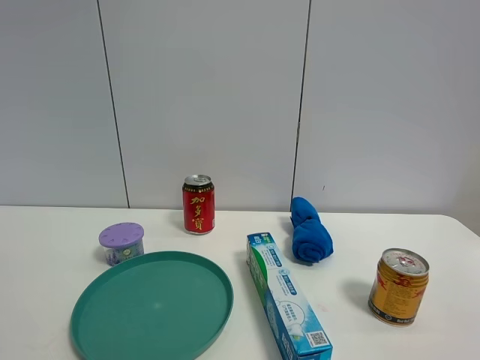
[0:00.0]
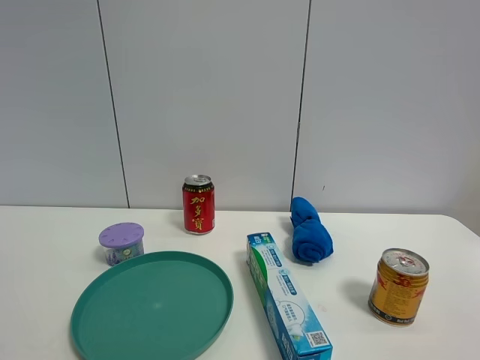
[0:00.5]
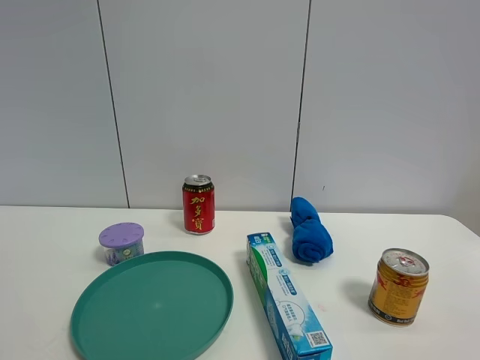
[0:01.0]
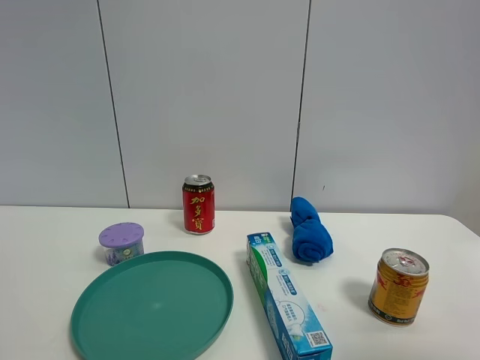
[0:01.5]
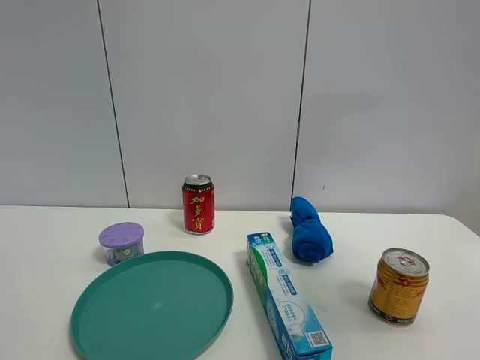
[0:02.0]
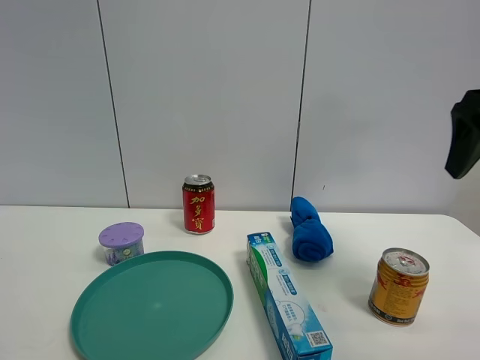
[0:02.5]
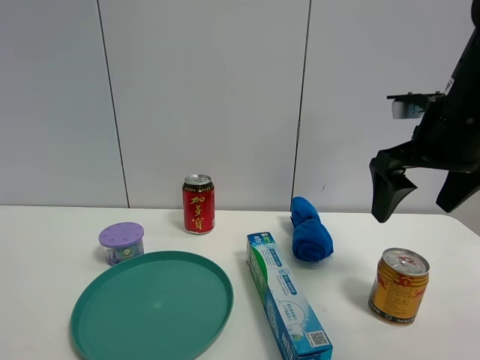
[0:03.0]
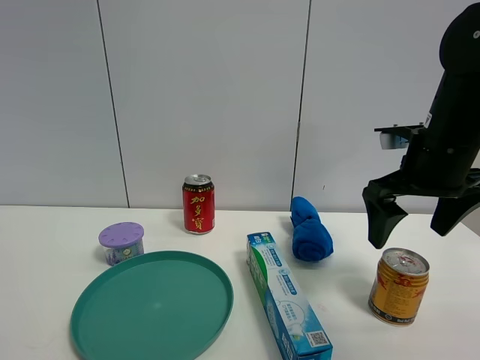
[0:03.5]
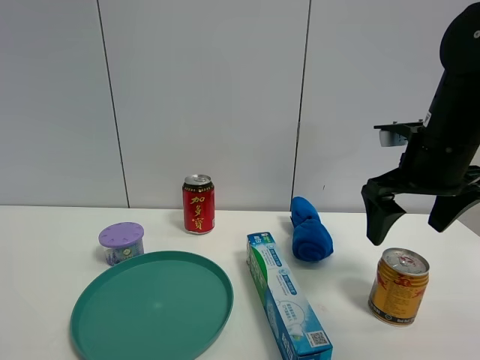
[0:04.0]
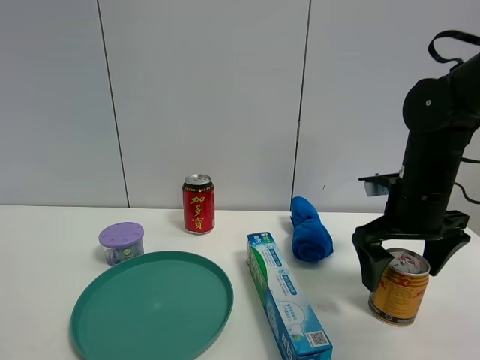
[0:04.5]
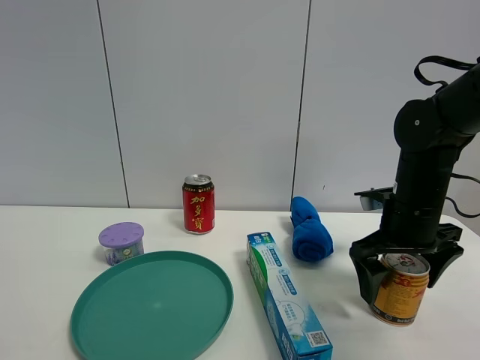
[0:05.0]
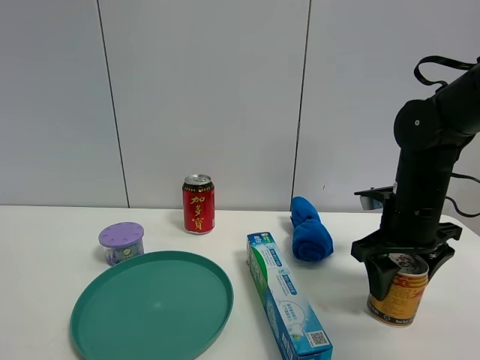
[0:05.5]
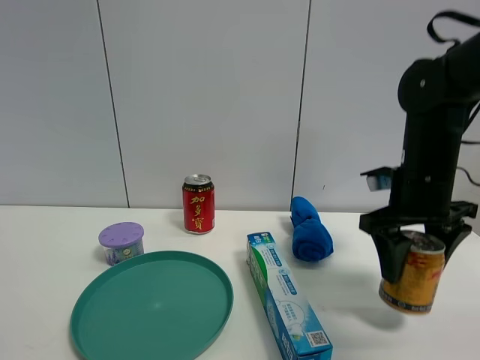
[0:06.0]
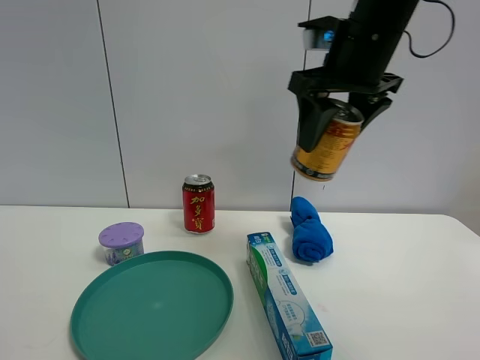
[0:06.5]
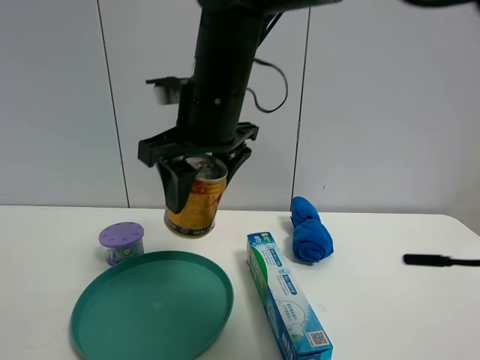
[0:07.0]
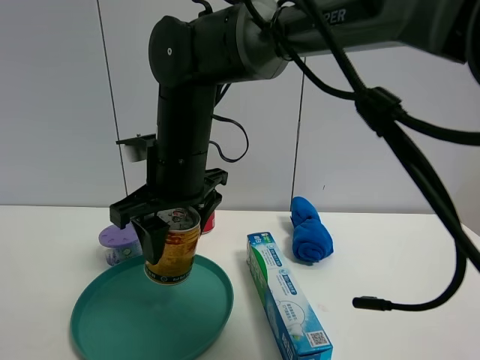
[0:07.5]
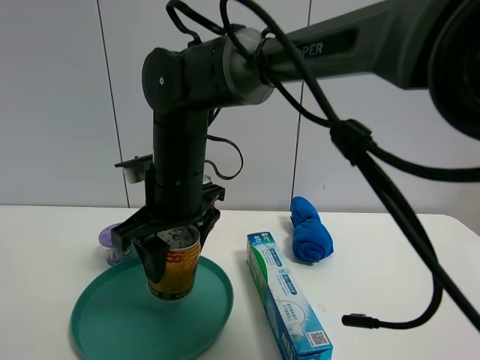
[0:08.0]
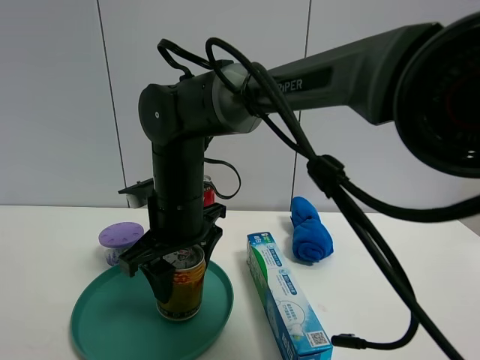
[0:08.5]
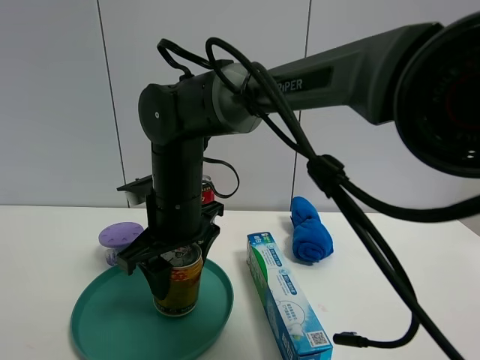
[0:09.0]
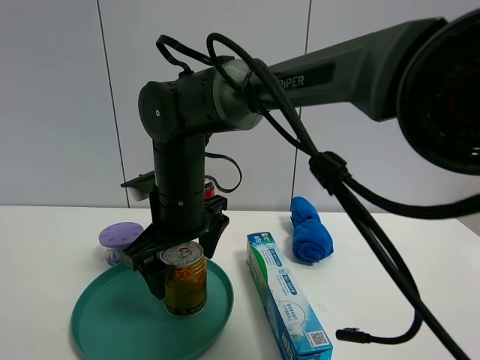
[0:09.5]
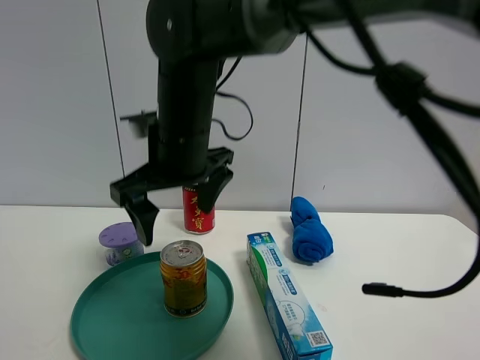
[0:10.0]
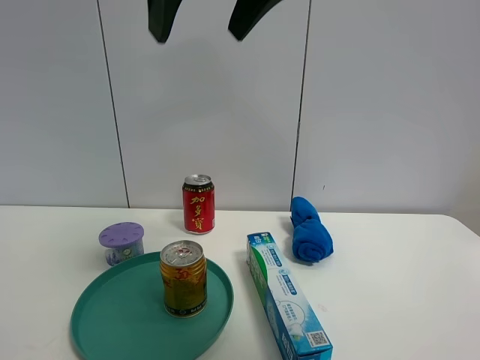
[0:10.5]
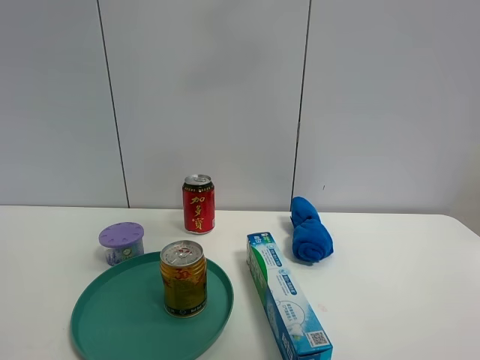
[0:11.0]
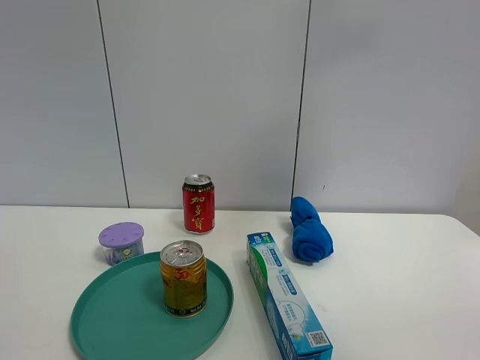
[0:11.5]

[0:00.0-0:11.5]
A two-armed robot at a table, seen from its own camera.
Task of the whole recording: the gripper move the object.
Step, 0:00.0 to 0:05.0: Grasp the red bull with the right gripper.
Step, 0:05.5 to 0:09.5: Place the red bull into the green plate with the right gripper.
0:00.0 to 0:02.0: The right gripper shifts approximately 20 cm forward and upward.
0:02.0 to 0:04.0: The right gripper travels downward, forward and to the left by roughly 25 cm.
0:04.0 to 0:06.0: The right gripper closes up.
0:06.0 to 0:07.5: The right gripper heads to the left, covering roughly 30 cm.
0:07.5 to 0:09.5: The right gripper goes roughly 5 cm downward, and opens.
0:09.5 to 0:11.5: The right gripper heads upward and to the right, covering roughly 50 cm.

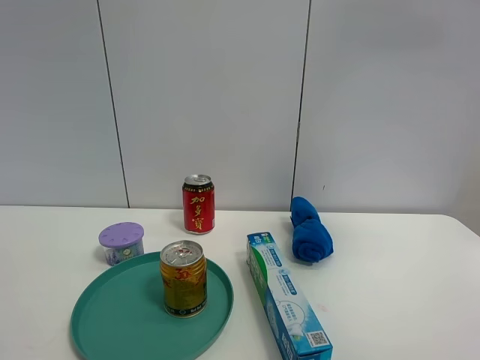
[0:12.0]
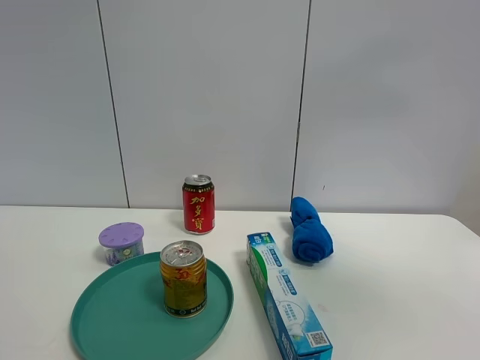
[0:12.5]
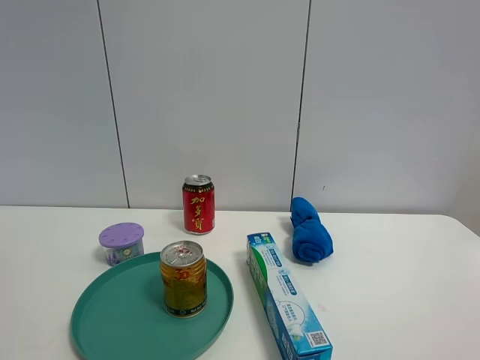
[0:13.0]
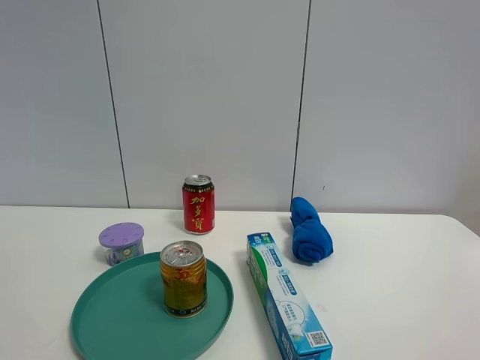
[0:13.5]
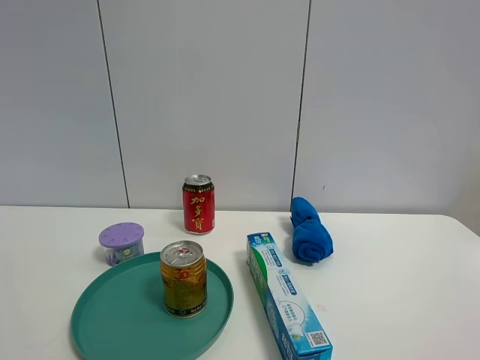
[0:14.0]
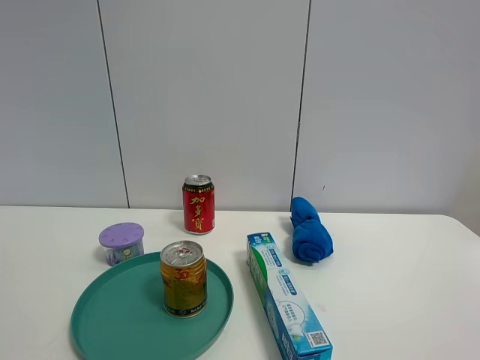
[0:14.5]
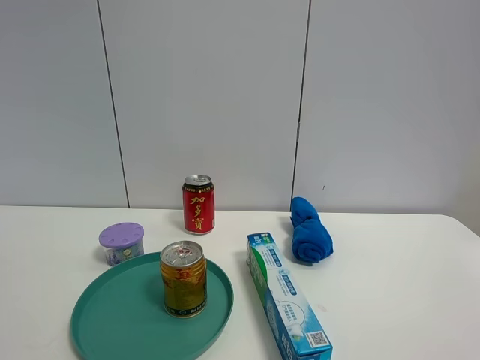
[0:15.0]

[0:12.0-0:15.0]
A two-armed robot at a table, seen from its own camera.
Task of the whole recording: the gripper move the object.
0:12.0 to 0:13.5: The right gripper heads downward and backward, covering approximately 40 cm.
0:13.5 to 0:15.0: Both grippers stay put.

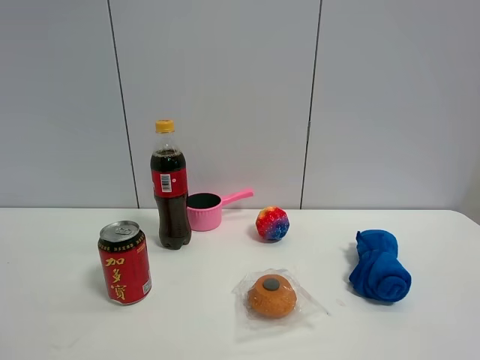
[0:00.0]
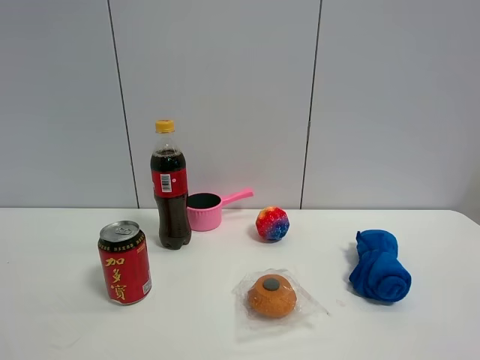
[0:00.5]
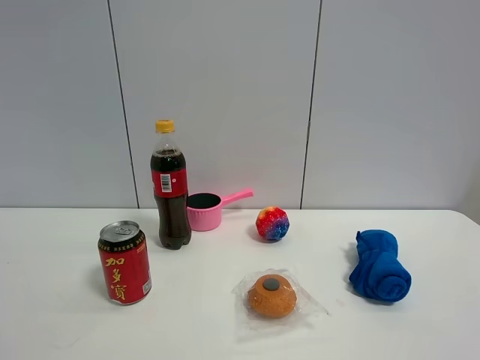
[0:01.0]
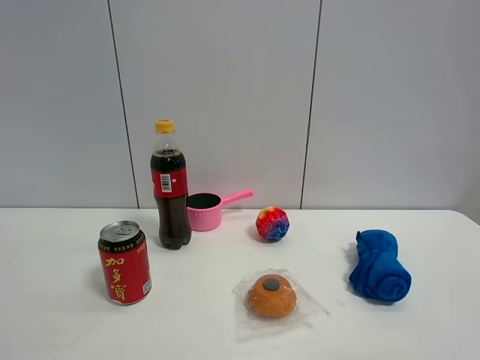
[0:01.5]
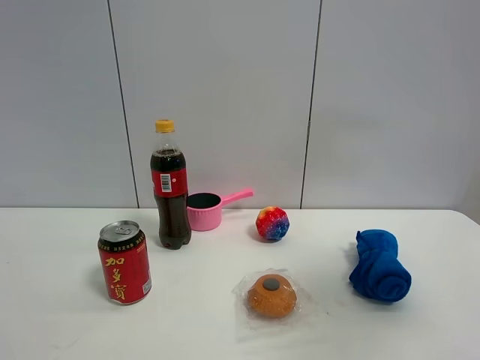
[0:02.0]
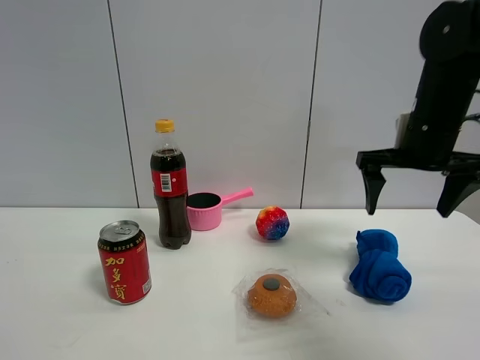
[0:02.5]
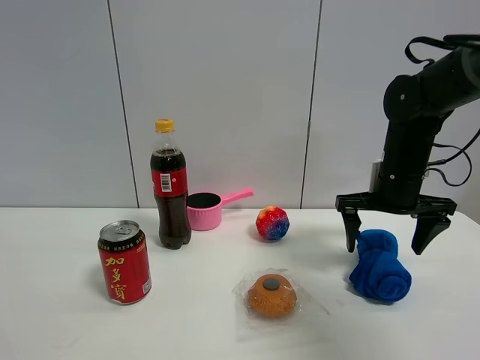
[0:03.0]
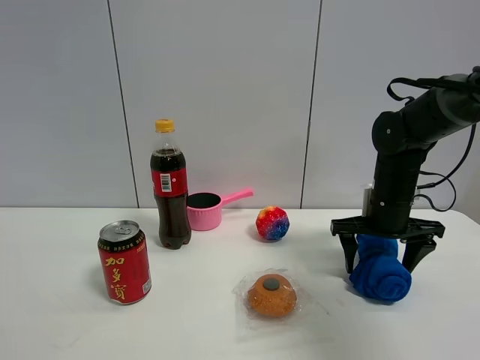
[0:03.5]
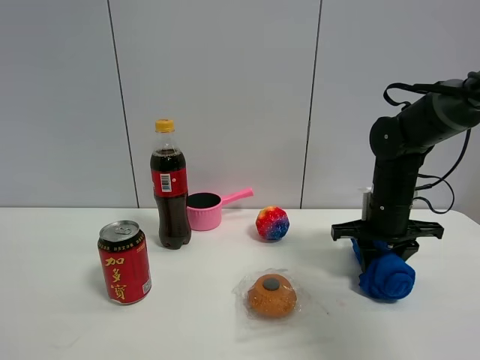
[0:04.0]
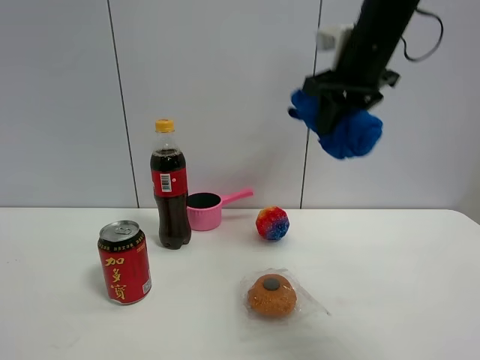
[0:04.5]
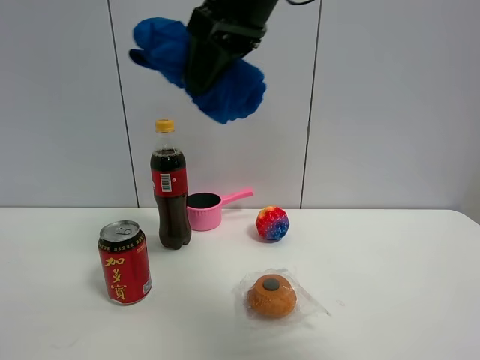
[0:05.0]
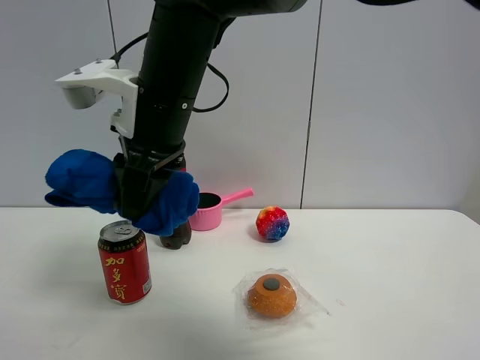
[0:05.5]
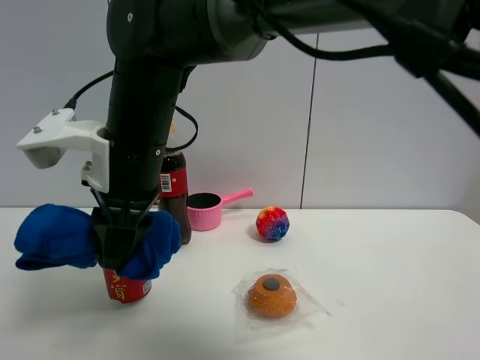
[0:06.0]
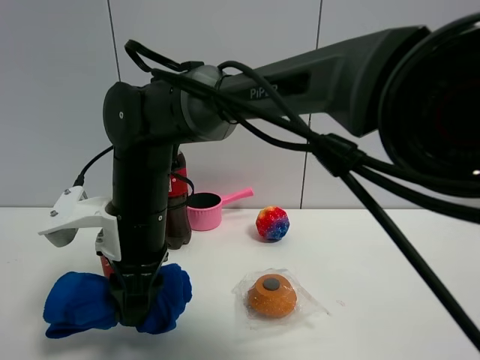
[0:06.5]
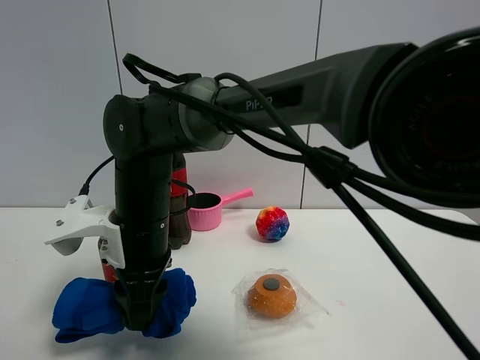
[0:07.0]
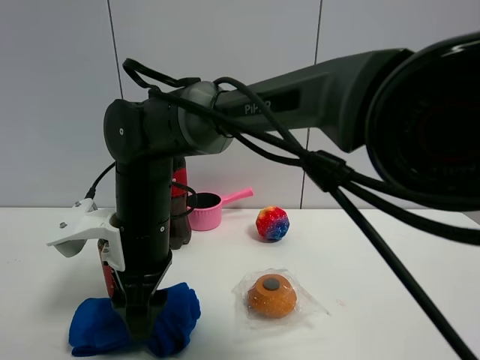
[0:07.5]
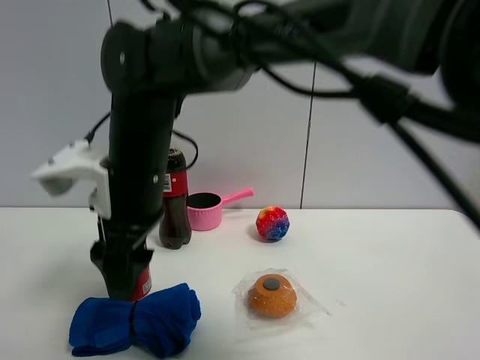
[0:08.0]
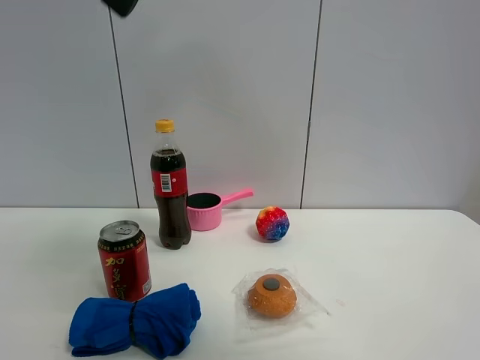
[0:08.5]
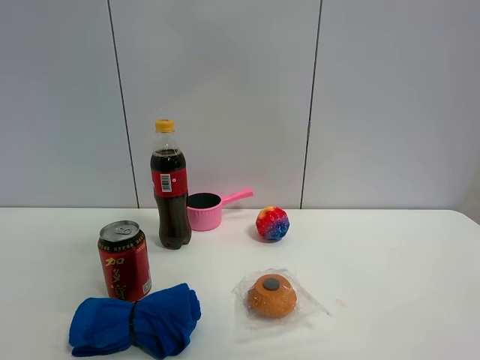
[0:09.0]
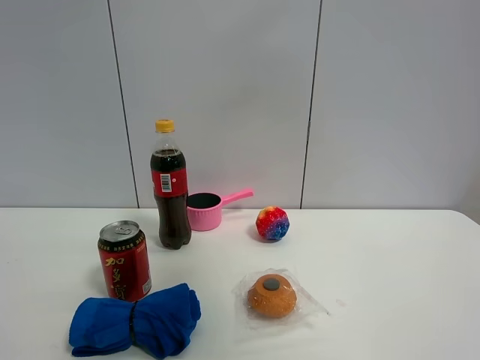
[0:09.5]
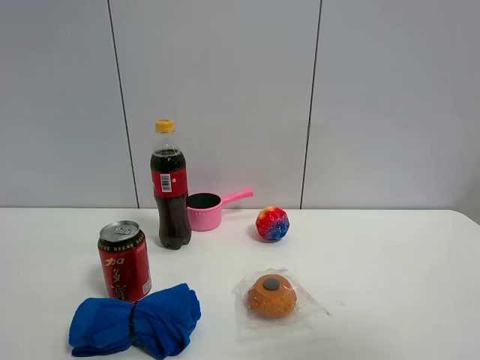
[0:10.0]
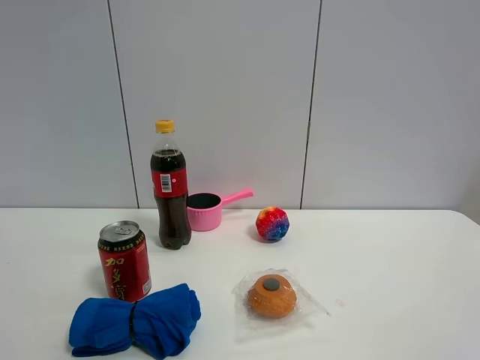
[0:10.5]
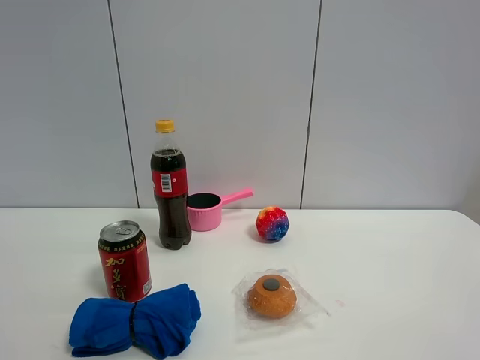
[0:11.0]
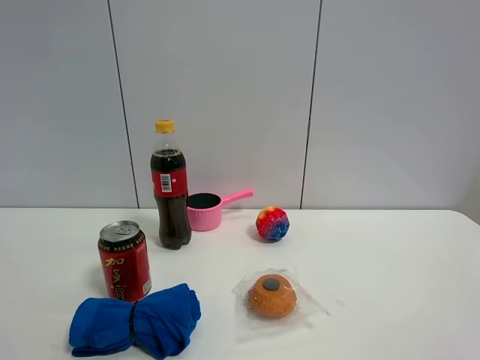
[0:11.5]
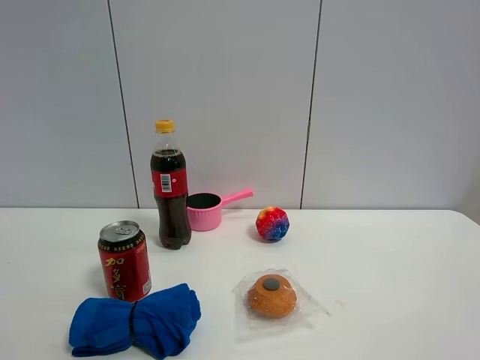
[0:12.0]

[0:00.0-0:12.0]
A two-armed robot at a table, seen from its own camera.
Task of the whole recording: the gripper move the object.
Step, 0:00.0 to 0:04.0: Grasp the blue towel with the right gripper.
Step, 0:04.5 to 0:07.5: Place the blue towel on the table with the right gripper.
0:00.0 to 0:02.0: The right gripper goes approximately 20 cm forward.
0:02.0 to 0:04.0: The right gripper travels downward and forward by roughly 30 cm, and closes.
0:04.0 to 0:06.0: The right gripper shifts about 35 cm to the left.
0:06.0 to 0:08.0: The right gripper moves roughly 10 cm downward and comes back, and opens its fingers.
0:08.0 to 0:10.0: The right gripper heads to the right and backward, covering roughly 40 cm, and opens.
0:10.0 to 0:12.0: The right gripper is displaced downward and backward by approximately 10 cm.
